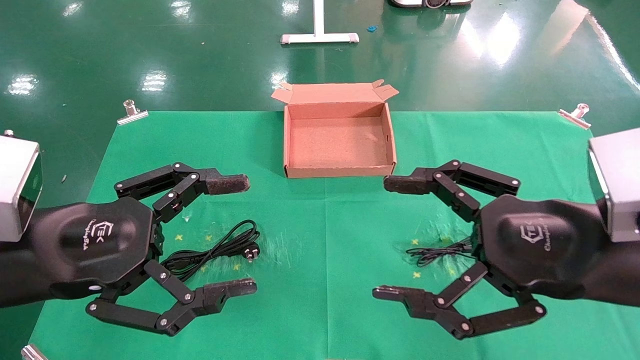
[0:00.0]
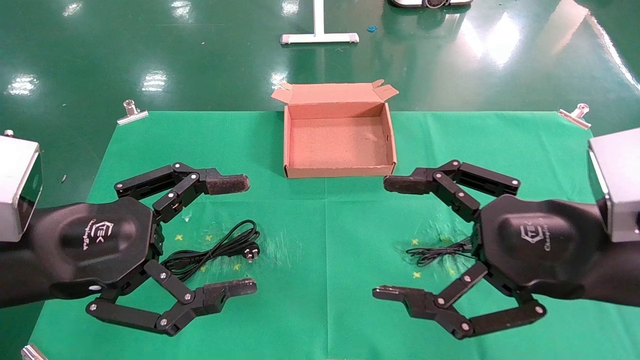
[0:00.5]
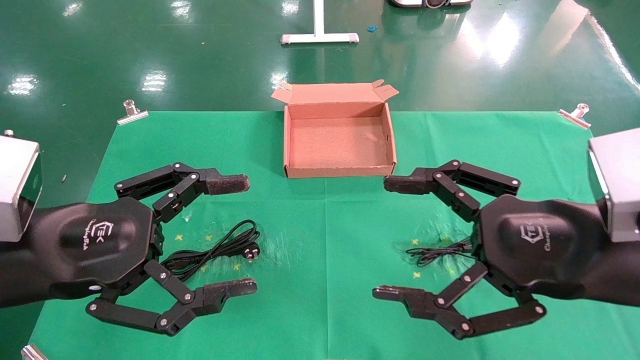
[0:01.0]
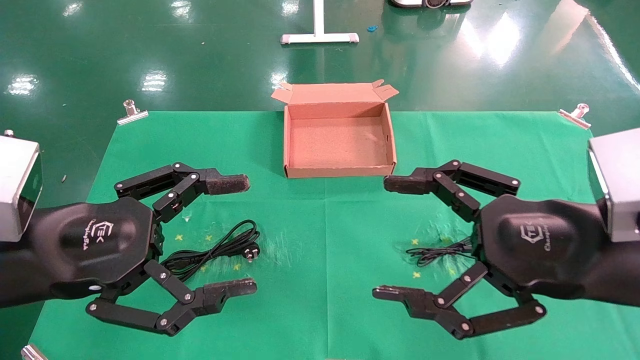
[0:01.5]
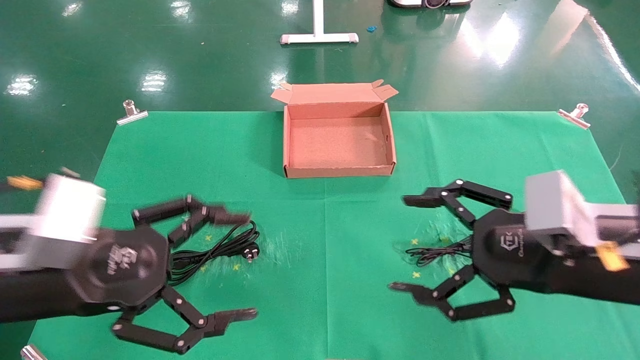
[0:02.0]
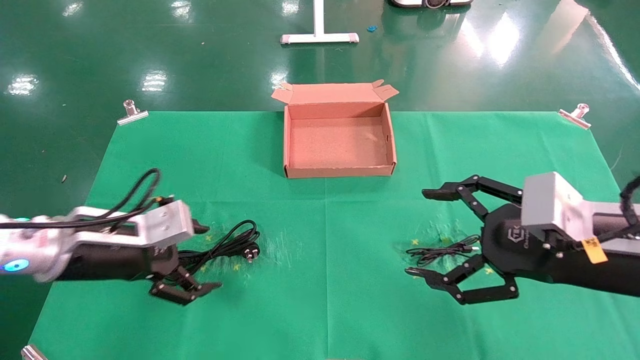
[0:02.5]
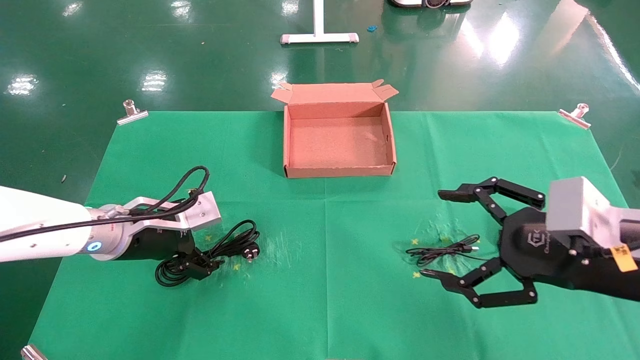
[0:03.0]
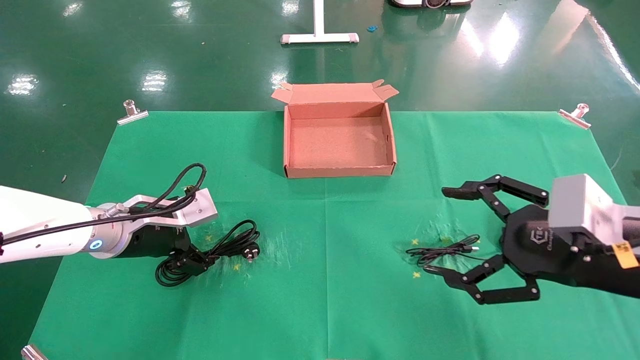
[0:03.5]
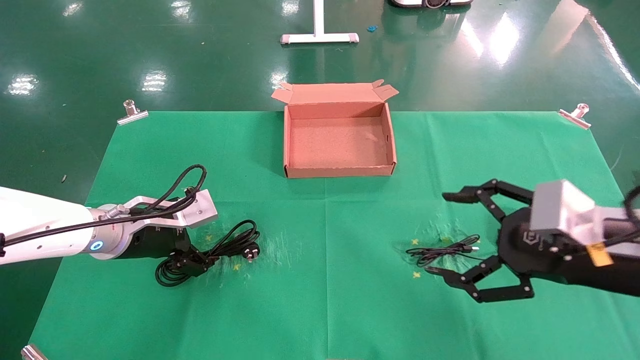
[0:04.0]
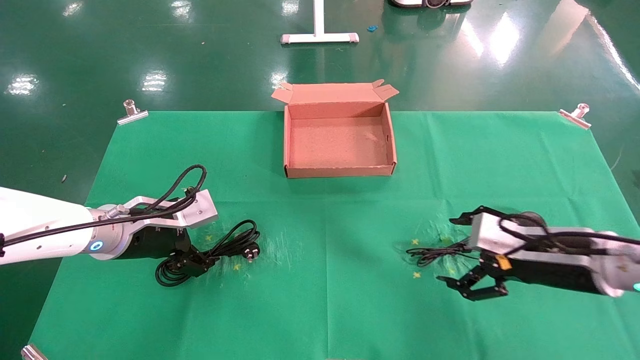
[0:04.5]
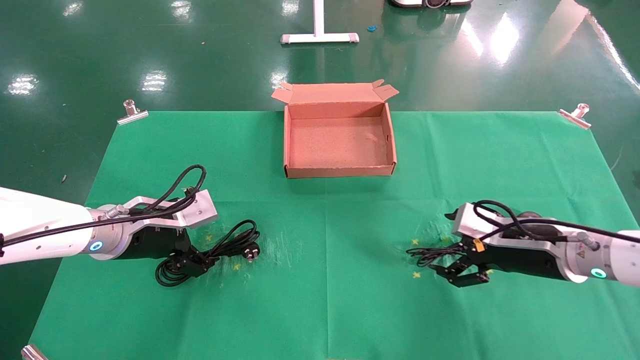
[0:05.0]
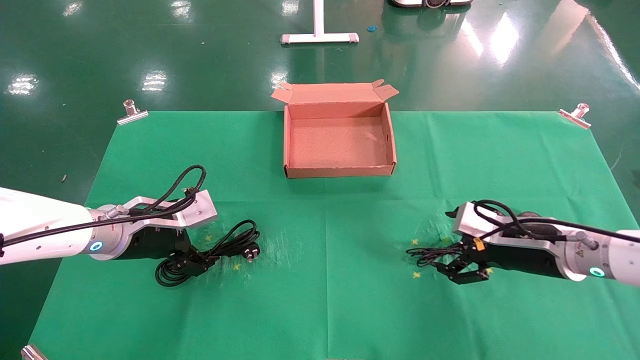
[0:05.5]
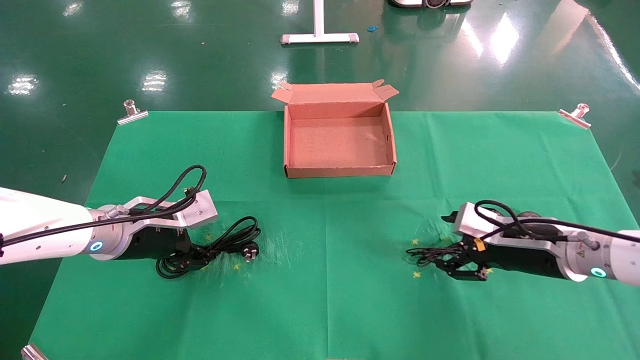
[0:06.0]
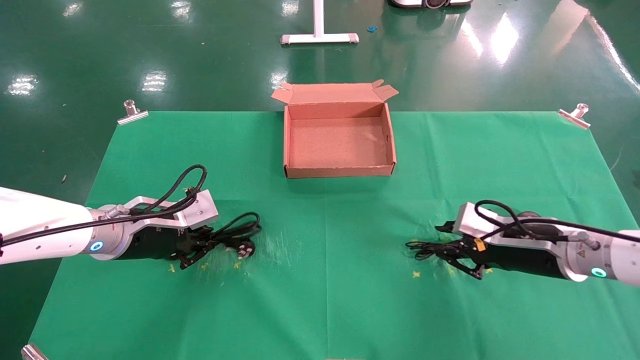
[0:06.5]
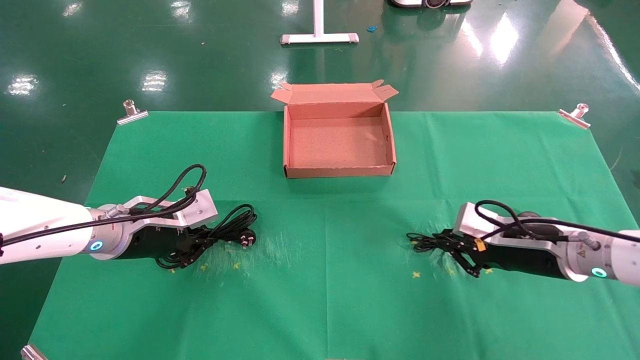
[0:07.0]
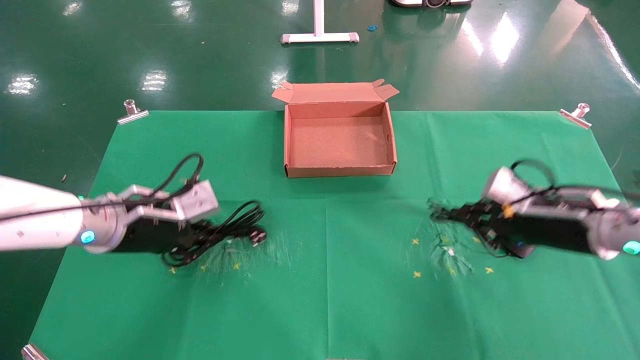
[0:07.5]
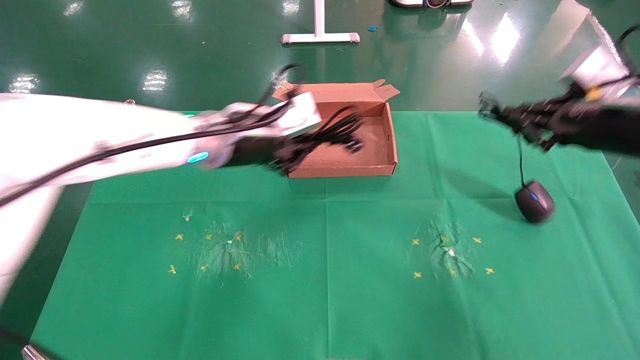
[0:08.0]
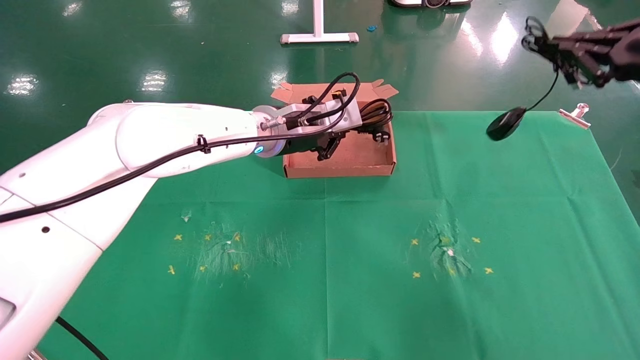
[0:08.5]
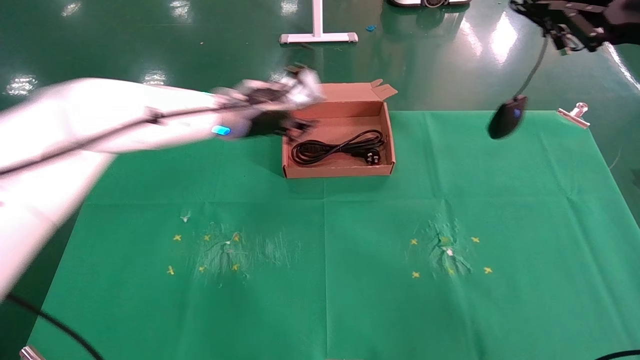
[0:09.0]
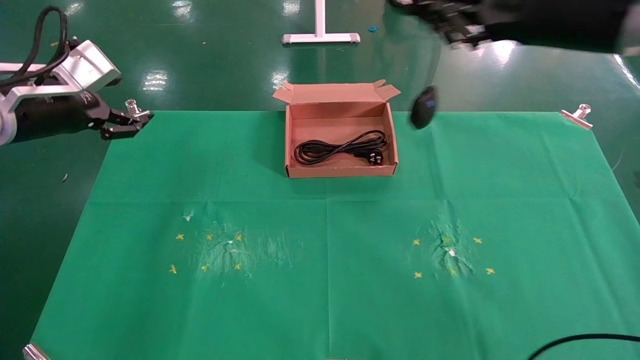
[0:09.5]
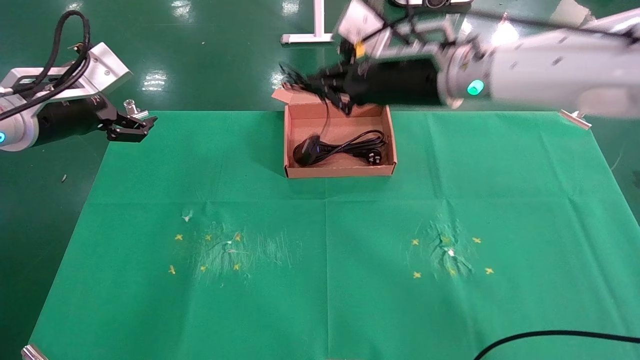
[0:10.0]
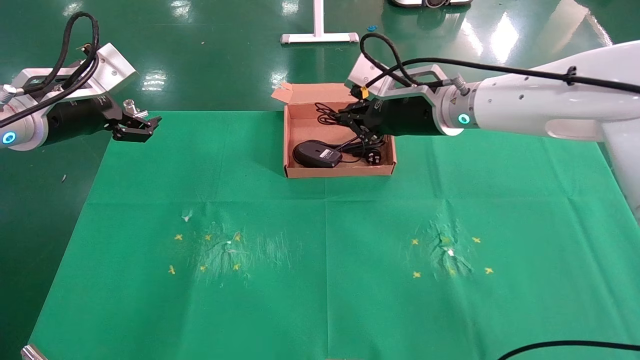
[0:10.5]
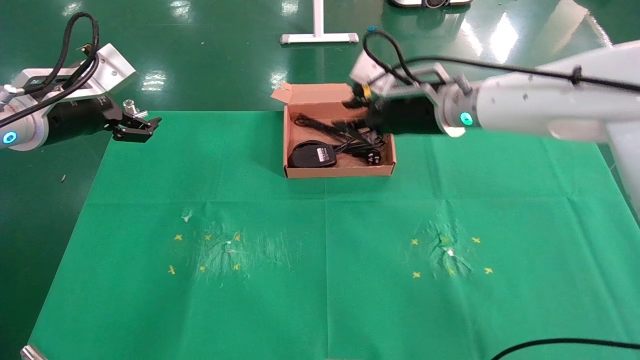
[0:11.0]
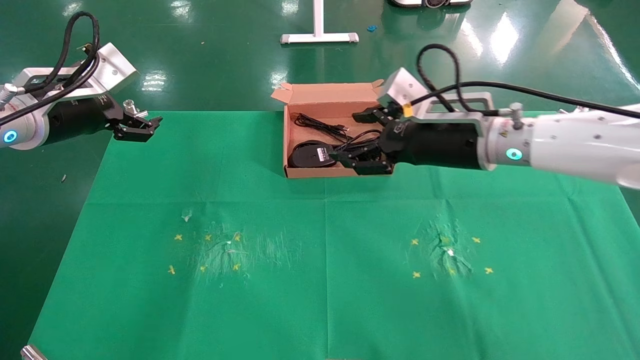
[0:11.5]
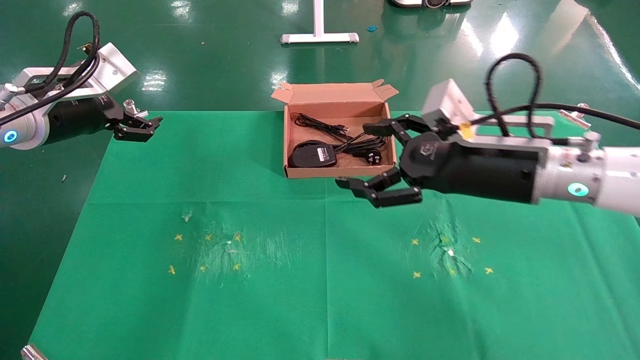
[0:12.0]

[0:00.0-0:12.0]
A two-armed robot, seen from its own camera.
Task of the whole recording: grasp data cable left put into box grasp mouse right put into box.
Step, 0:02.0 to 0:06.5: Simultaneously pick up the mouse and power cord from the accessory packaging area.
Step, 0:07.0 to 0:11.0: Place the mouse and power cord into the box.
0:02.0 to 0:04.0: The left gripper goes approximately 15 cm forward.
0:04.0 to 0:06.0: The right gripper goes approximately 15 cm forward and downward.
0:06.0 to 0:08.0: The left gripper is displaced to the right and upward by about 20 cm, and closes up. Meanwhile the right gripper heads upward and to the right, covering roughly 20 cm, and closes up.
0:08.0 to 0:10.0: Both grippers travel together to the left, roughly 25 cm. The left gripper opens its fingers.
0:10.0 to 0:12.0: The right gripper moves downward, backward and to the right, about 15 cm, and opens up.

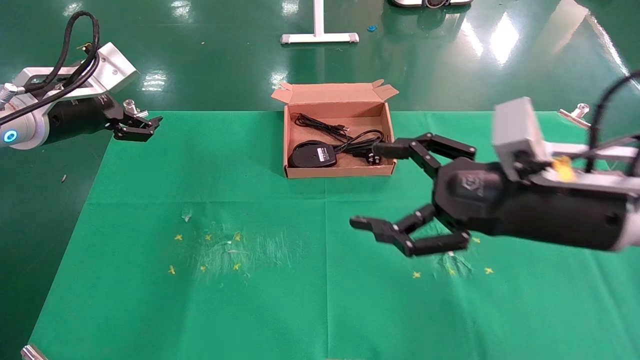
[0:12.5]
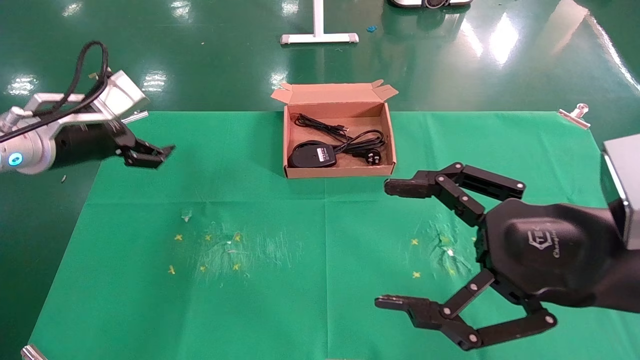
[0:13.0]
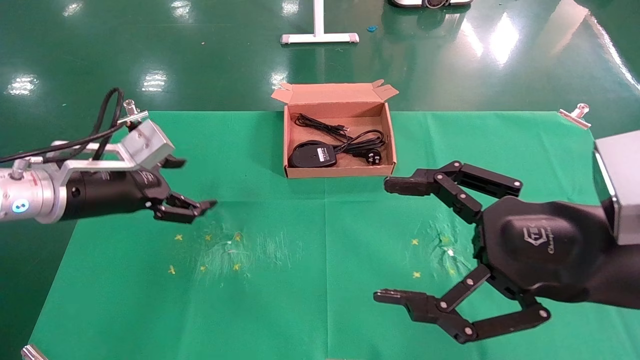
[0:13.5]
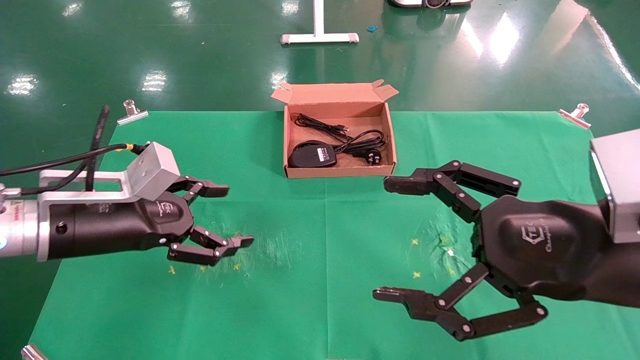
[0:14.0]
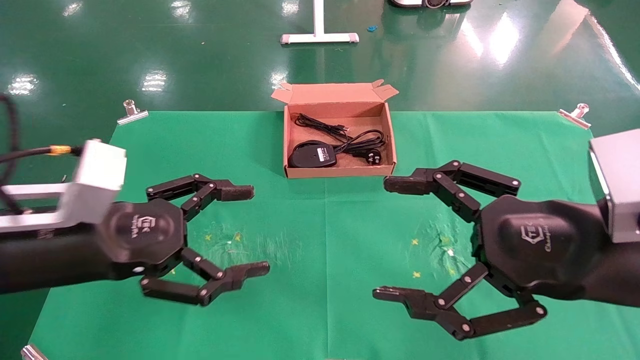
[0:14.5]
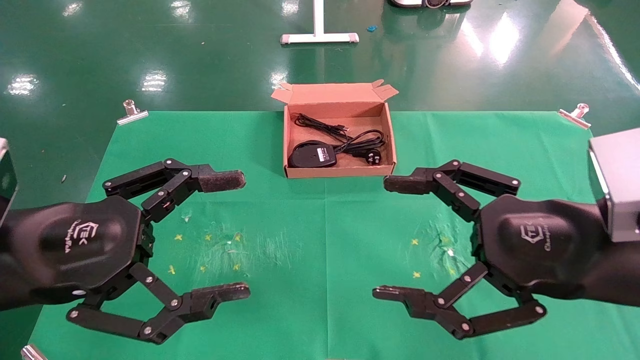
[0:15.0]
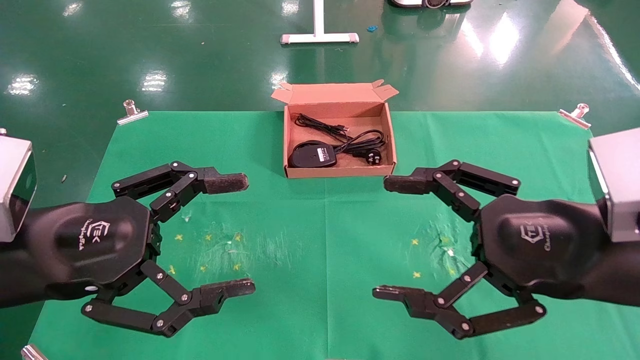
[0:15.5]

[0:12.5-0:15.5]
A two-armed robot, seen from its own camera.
Task of the whole recording: grasp data cable left put into box grasp mouse right put into box.
0:12.5 to 0:14.0: The right gripper shifts about 5 cm backward. Meanwhile the left gripper is displaced downward, backward and to the right by roughly 15 cm.
0:14.0 to 0:15.5: The left gripper shifts some 10 cm backward.
